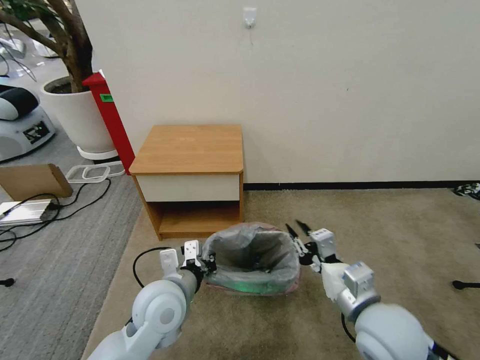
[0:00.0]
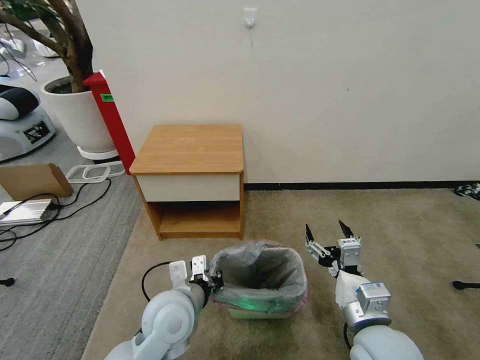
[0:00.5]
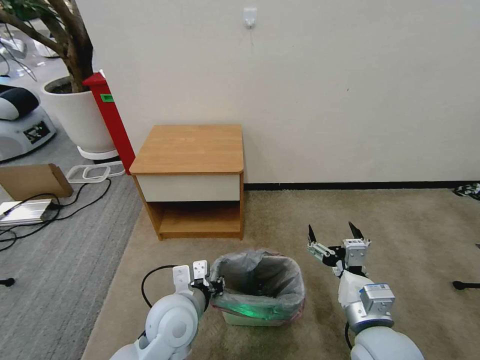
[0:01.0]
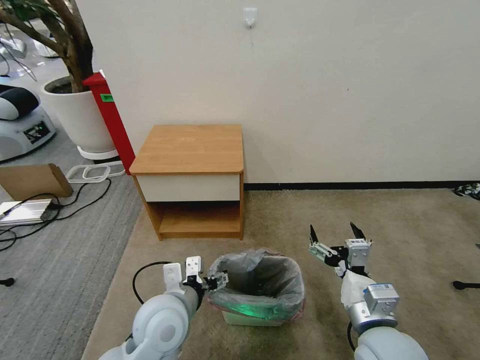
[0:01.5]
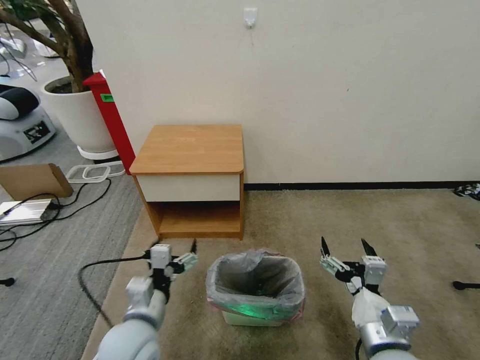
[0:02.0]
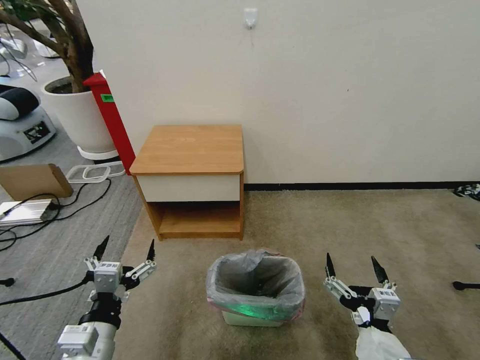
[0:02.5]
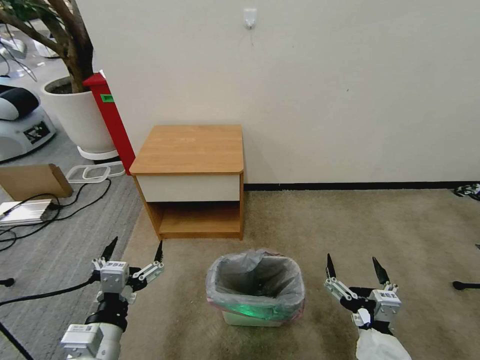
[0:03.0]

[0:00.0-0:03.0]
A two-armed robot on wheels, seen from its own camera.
Task of the whole recording: Pick up the garbage bag from the table and place it over the trash can.
0:00.0 to 0:01.5: The left gripper opens up. Meanwhile the right gripper opens.
0:01.5 to 0:03.0: The left gripper moves backward and to the left, about 15 cm; the right gripper heads backward, covering approximately 10 cm.
